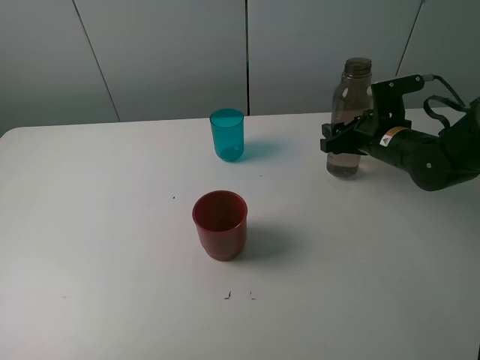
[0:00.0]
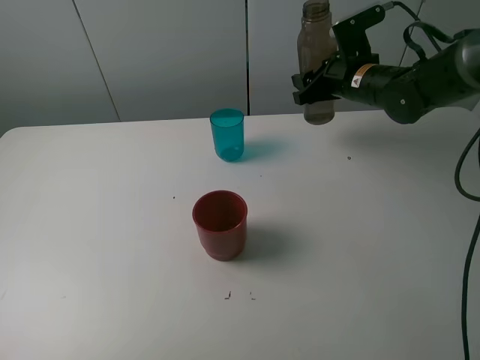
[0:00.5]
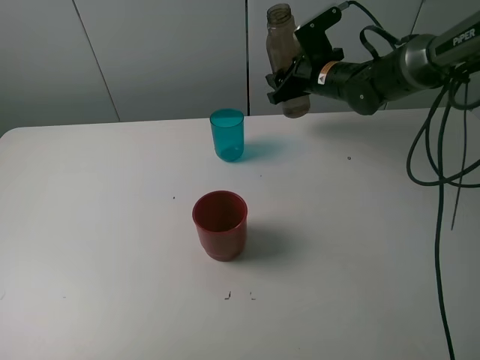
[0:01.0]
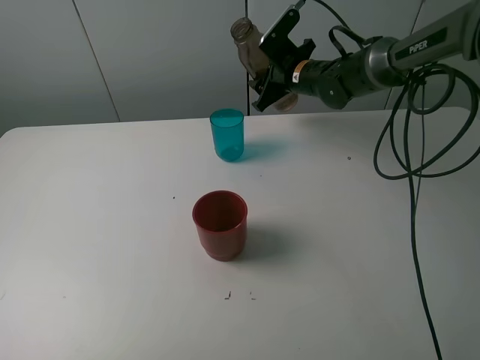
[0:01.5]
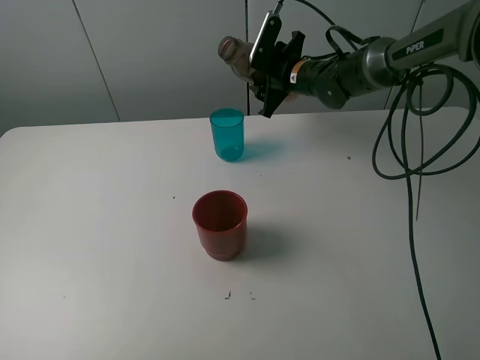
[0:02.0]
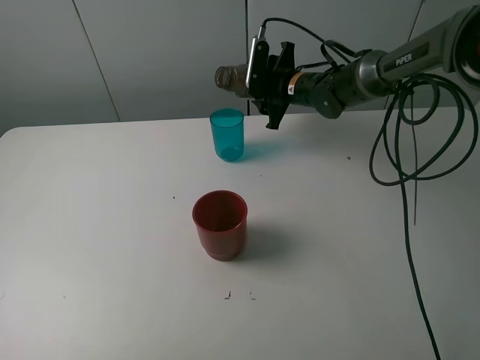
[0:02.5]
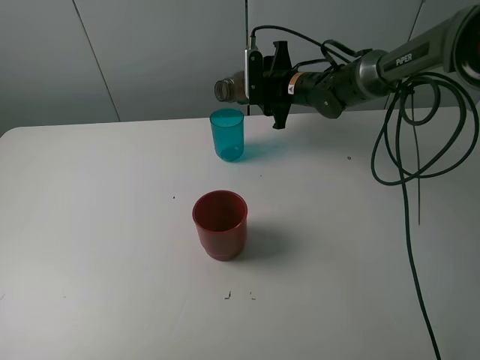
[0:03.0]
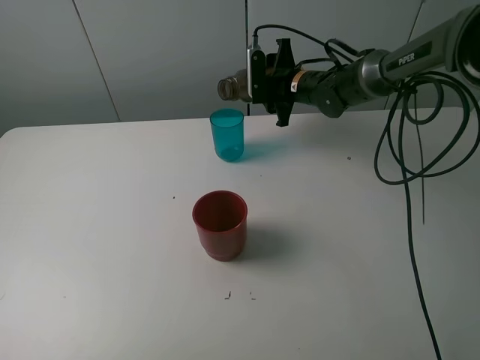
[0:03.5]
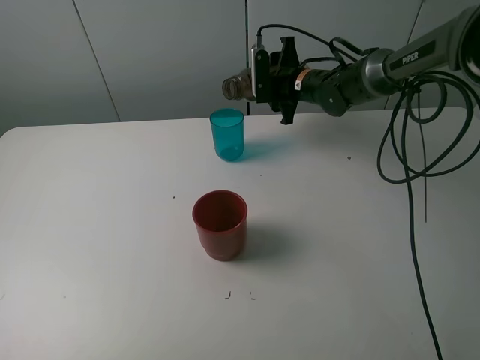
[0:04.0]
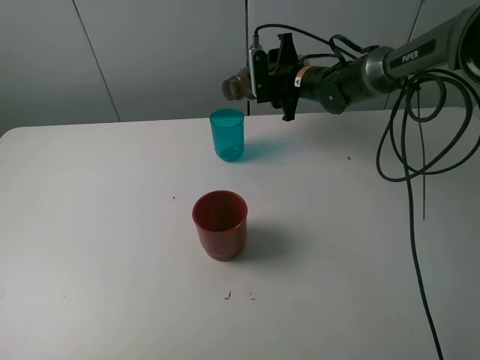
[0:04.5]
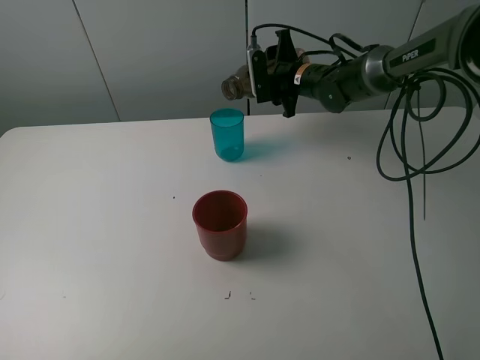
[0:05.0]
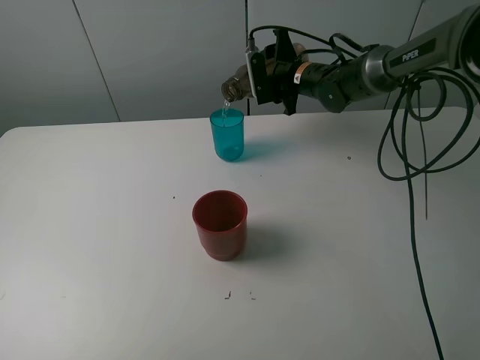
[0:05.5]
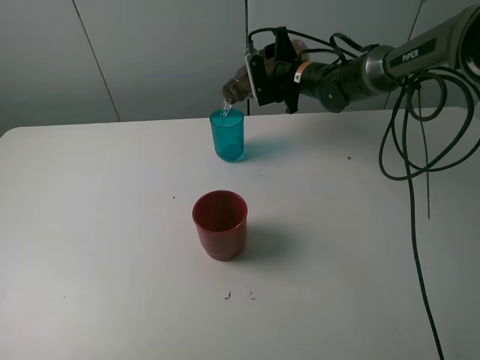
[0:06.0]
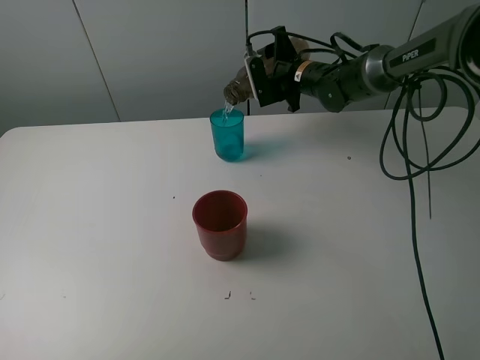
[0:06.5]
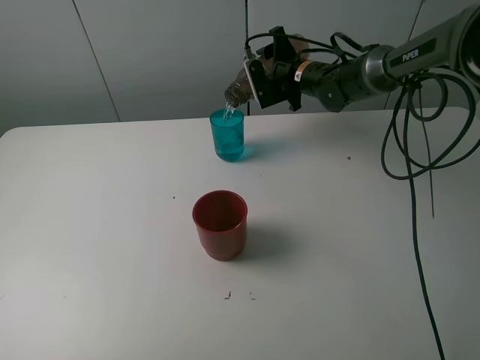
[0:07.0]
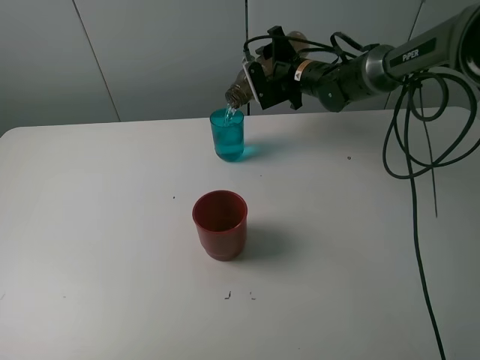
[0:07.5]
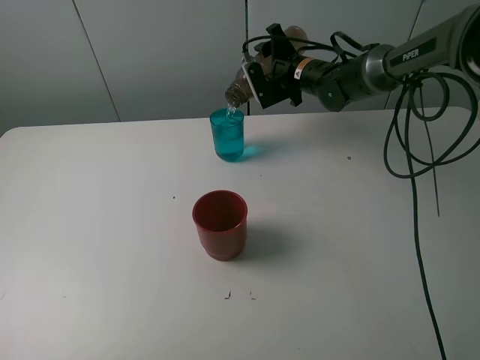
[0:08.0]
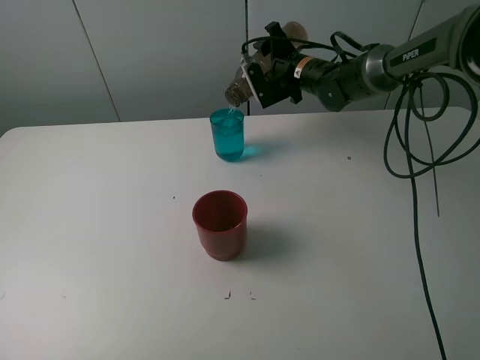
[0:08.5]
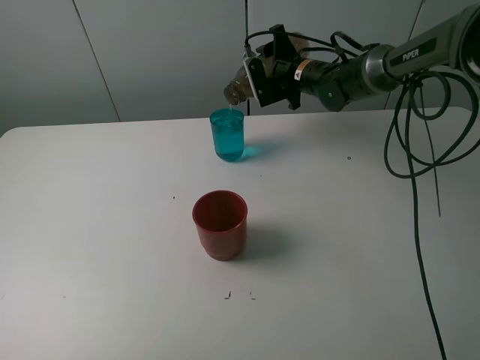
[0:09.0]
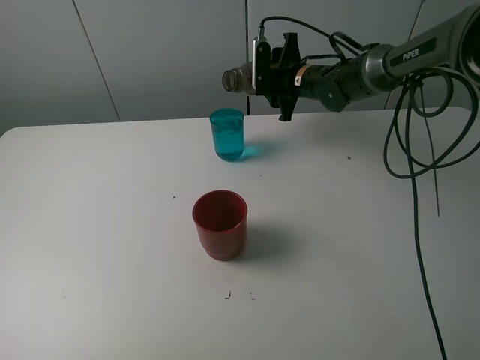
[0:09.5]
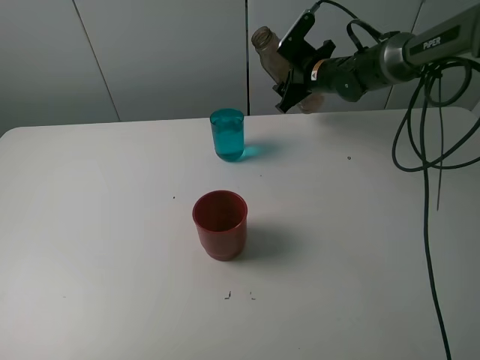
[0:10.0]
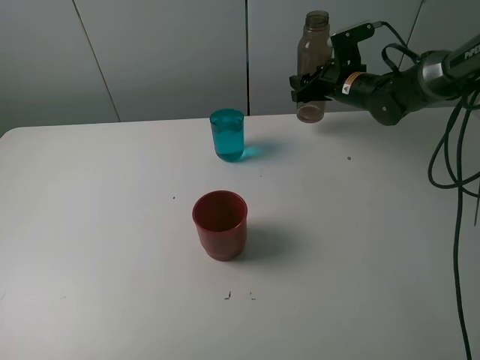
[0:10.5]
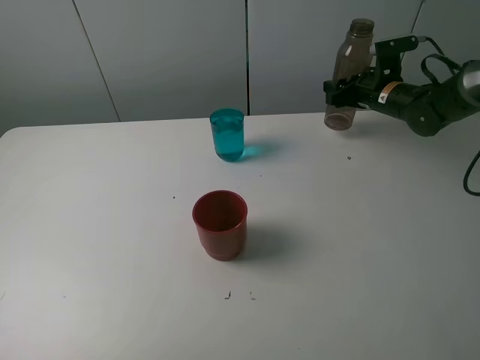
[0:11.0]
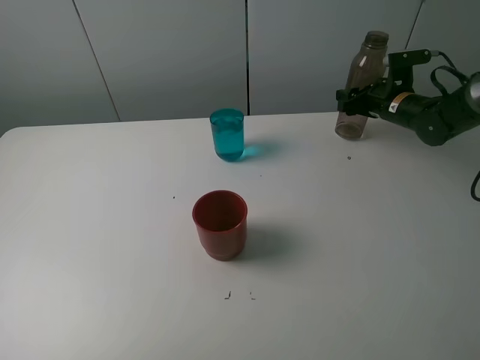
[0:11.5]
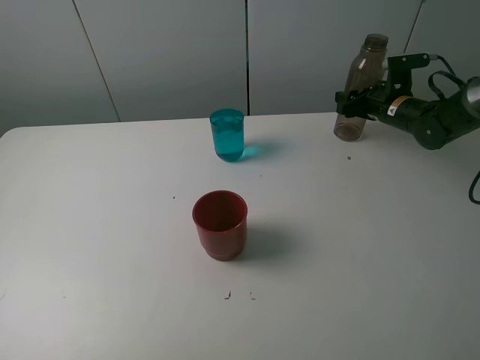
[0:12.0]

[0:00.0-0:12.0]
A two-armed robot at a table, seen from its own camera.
Task of the whole recording: pick up the bottle and pour water into the cup, then pick up the cup containing water and pour it into another cup.
Step, 0.0 to 9.0 s: Pour water from brown bottle to blue cup with the right gripper.
0.0 to 2.0 s: The right gripper shifts some 20 cm forward and to the left.
4.0 to 6.0 s: The grippers move only a little.
6.0 to 8.0 s: The grippers move only a little.
10.0 to 12.0 s: The right gripper is displaced to the right by some 15 cm.

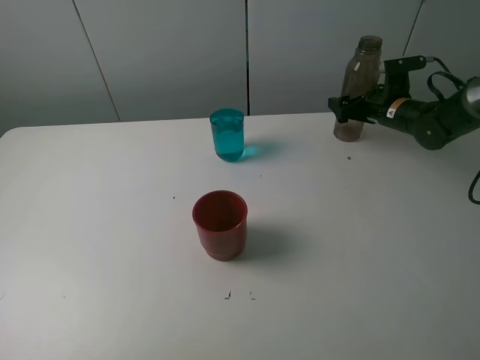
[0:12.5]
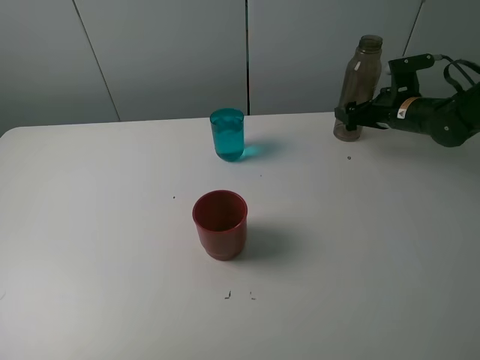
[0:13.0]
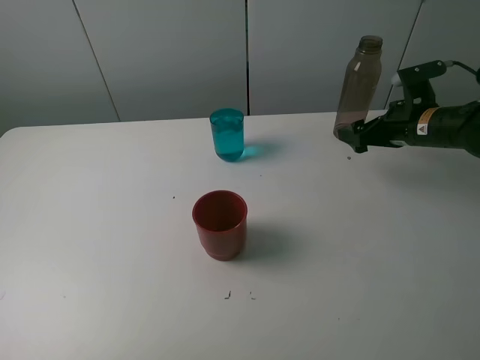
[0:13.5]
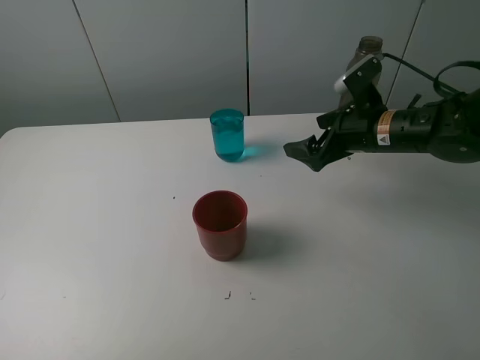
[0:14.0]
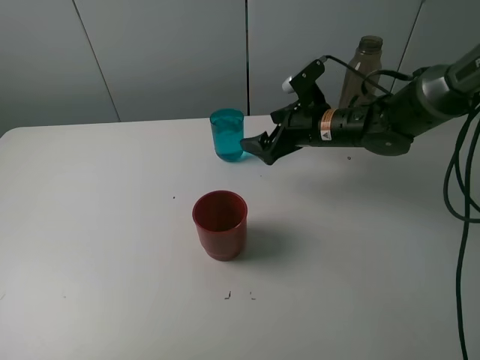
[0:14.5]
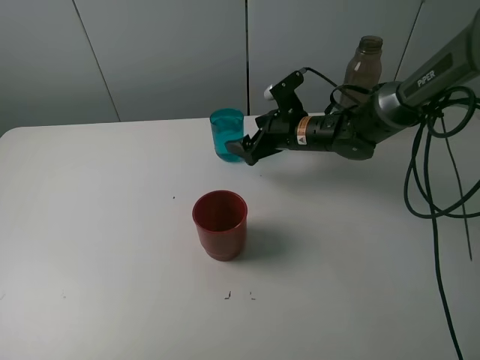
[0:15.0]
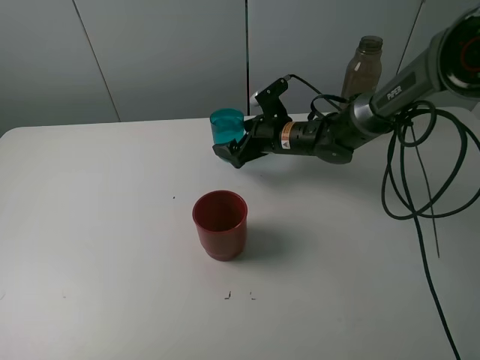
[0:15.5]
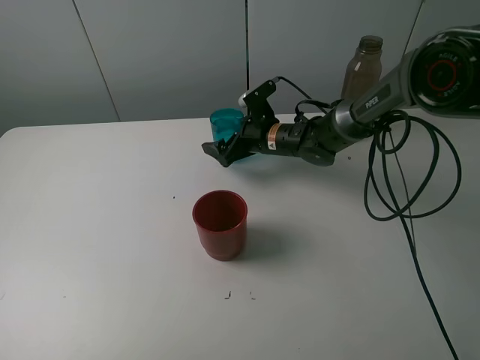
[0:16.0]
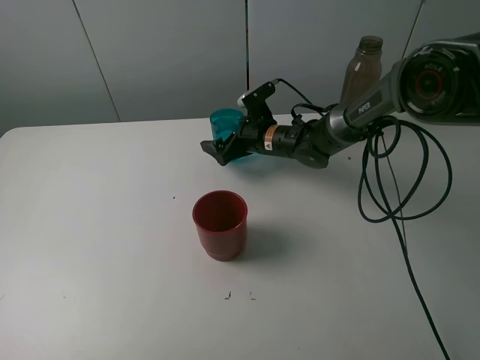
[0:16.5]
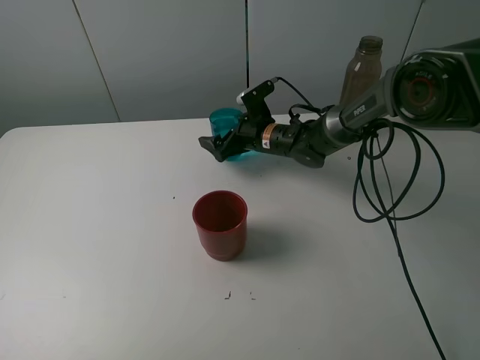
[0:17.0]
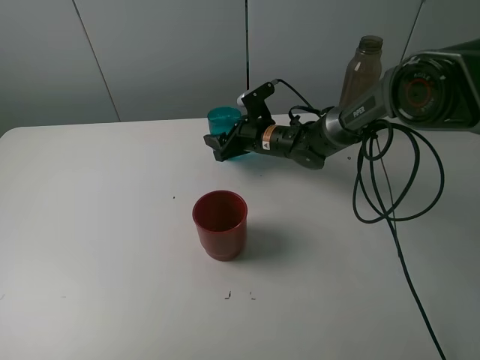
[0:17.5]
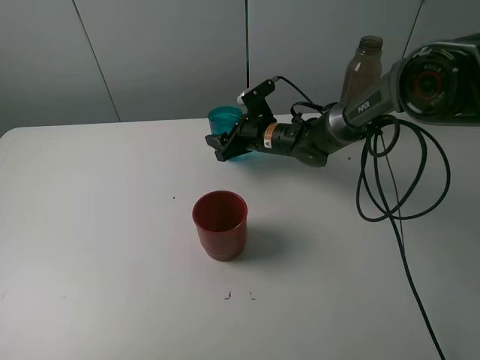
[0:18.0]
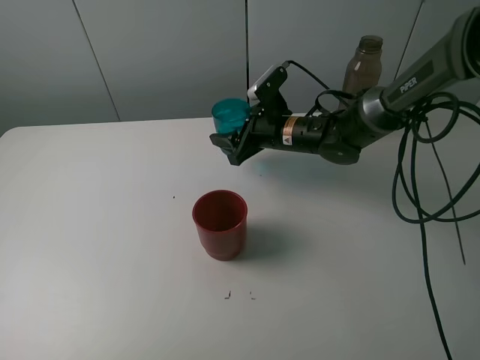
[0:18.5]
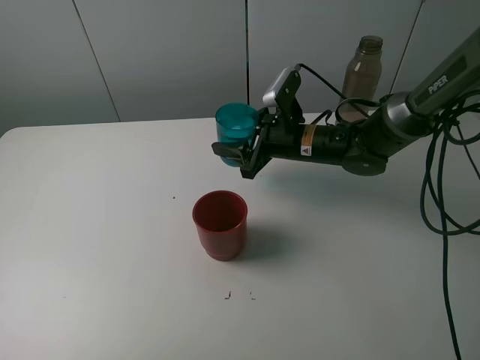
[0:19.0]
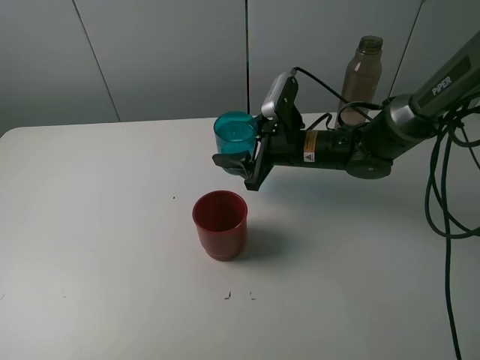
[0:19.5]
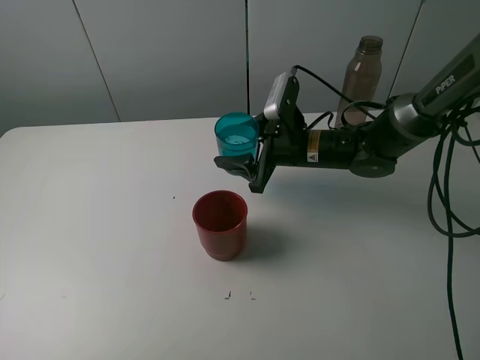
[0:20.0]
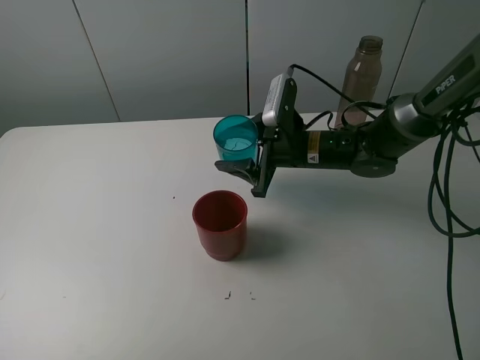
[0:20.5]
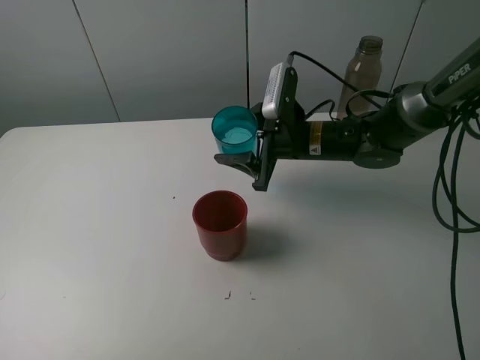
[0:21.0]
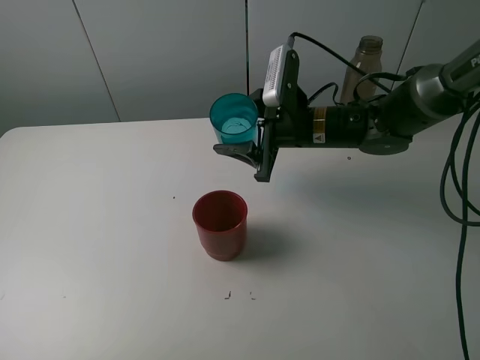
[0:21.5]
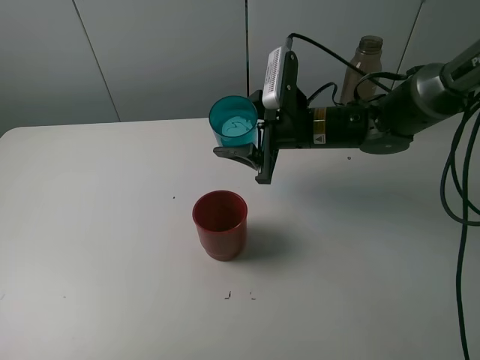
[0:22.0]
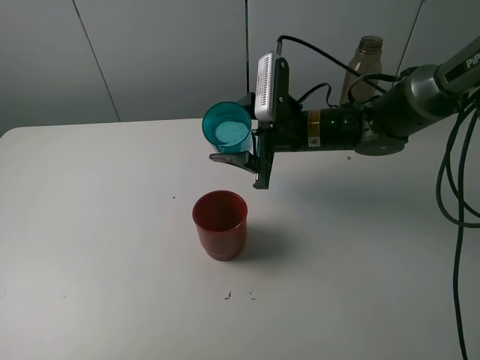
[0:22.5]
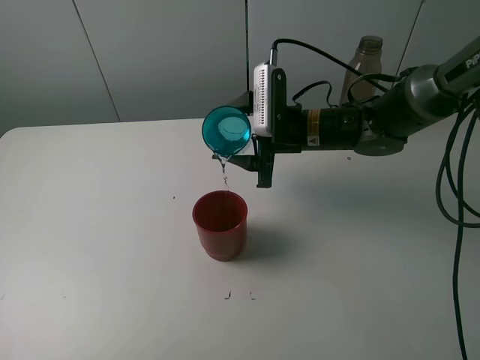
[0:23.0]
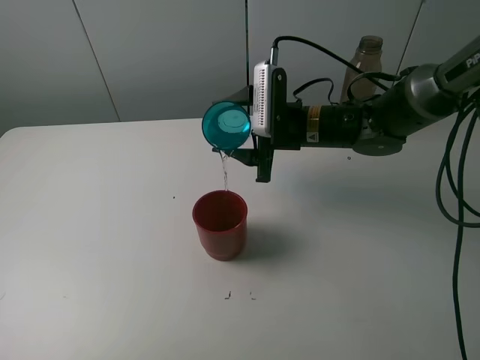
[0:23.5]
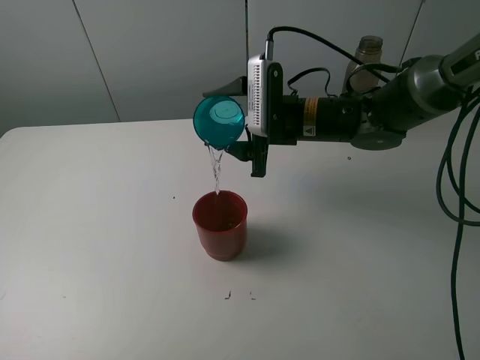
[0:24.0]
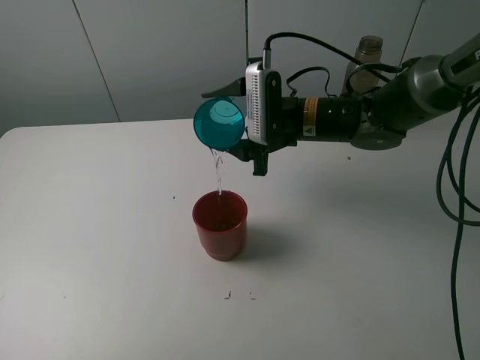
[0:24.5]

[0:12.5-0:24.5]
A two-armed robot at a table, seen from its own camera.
Task of the whole recording: pick up the bottle and pour water into the cup, then pick up the cup containing water and pour it into another cup.
Step, 13.0 to 17.5 s: Grasp the blue cup with the right gripper.
12.5 to 14.5 s: The right gripper heads to the left and backward, covering approximately 20 cm.
14.5 to 16.5 s: The right gripper is displaced to the left, downward and forward by about 10 cm.
16.5 to 18.5 s: The right gripper ends up roughly 5 cm from where it was, and closes its fingers.
20.5 to 22.5 s: The grippers stay close to where they were, moving slightly.

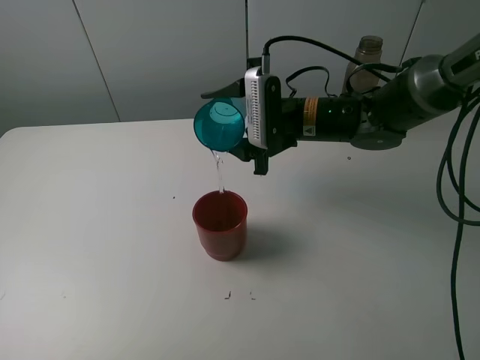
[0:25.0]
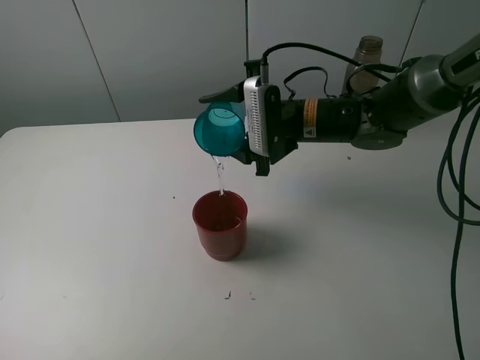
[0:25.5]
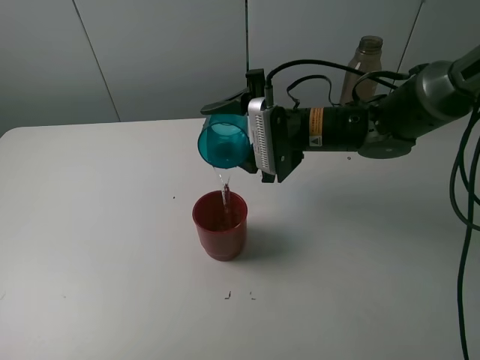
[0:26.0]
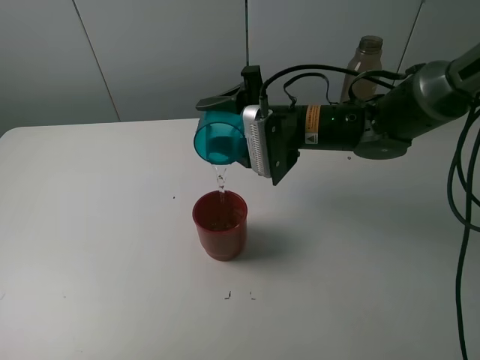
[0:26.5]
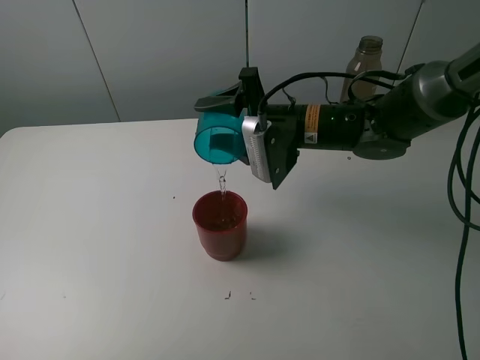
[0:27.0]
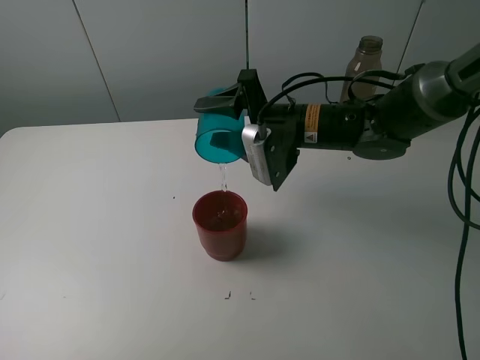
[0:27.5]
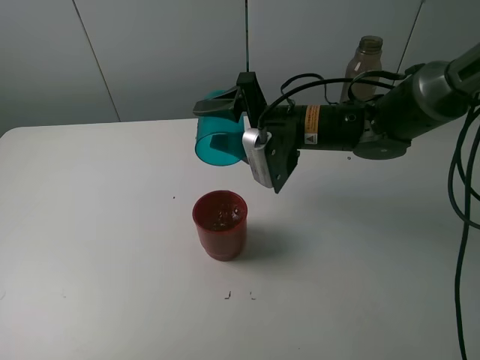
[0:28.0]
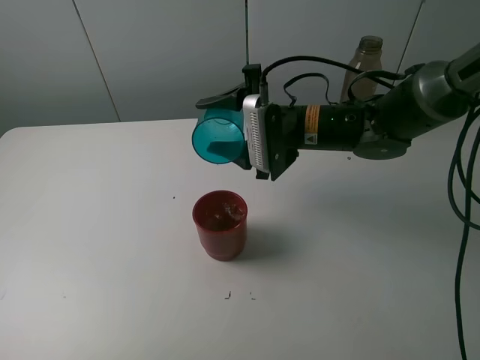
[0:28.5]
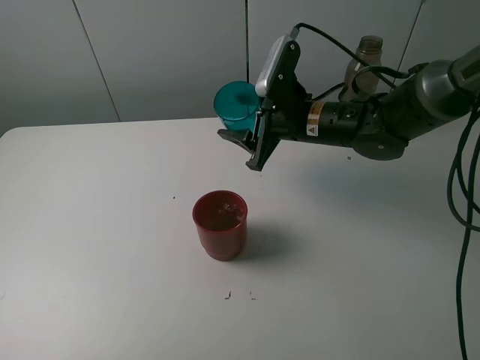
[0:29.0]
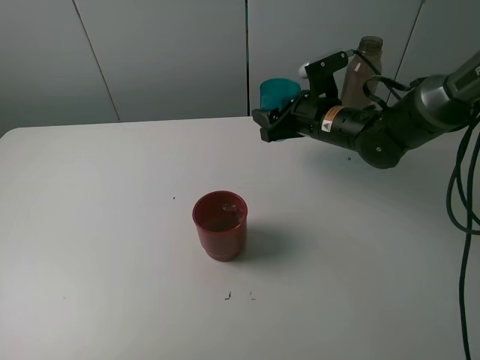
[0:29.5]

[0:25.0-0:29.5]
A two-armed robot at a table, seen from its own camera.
Task of the whole recording: pick up the bottle and pour water into the cup, then pick up the cup containing water and pour it into another cup.
Step, 25.0 to 28.0 s: Pour water from blue cup to red cup with the right gripper.
27.0 to 29.5 s: The right gripper moves to the right and forward, about 10 cm.
